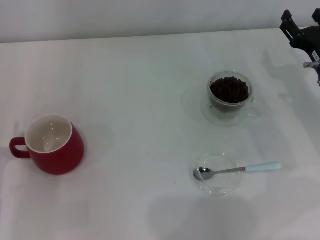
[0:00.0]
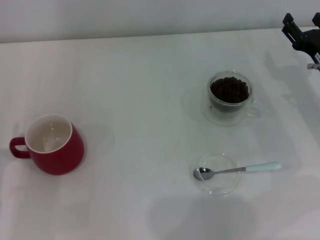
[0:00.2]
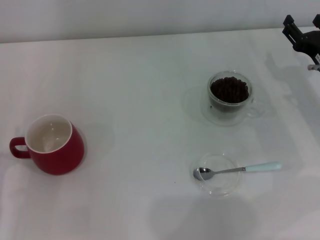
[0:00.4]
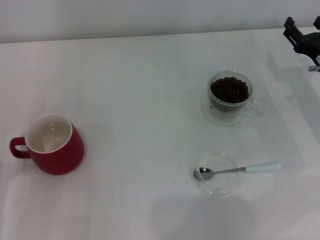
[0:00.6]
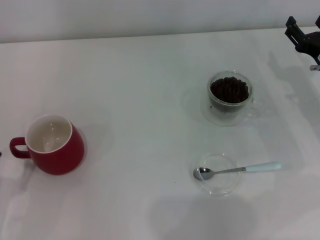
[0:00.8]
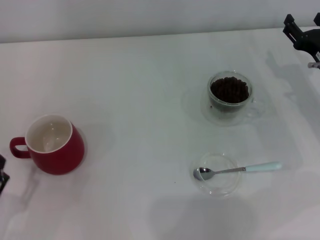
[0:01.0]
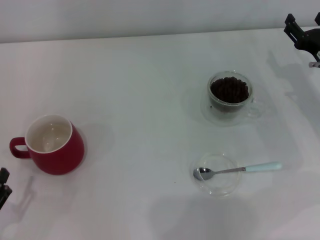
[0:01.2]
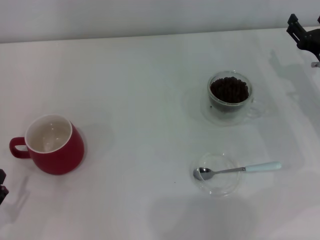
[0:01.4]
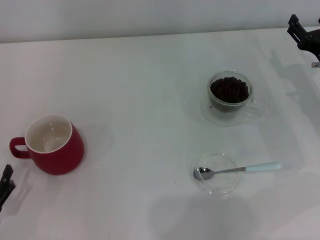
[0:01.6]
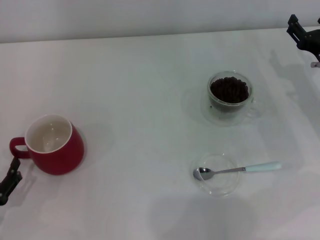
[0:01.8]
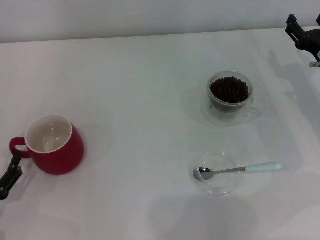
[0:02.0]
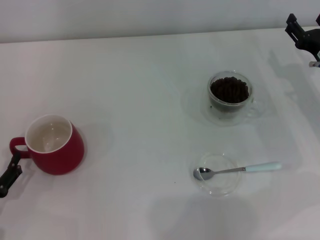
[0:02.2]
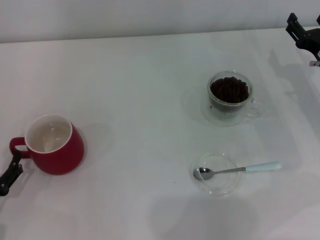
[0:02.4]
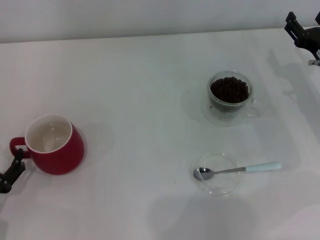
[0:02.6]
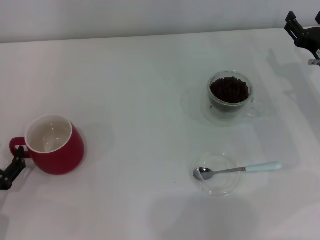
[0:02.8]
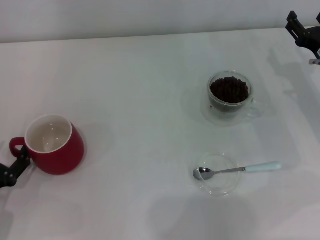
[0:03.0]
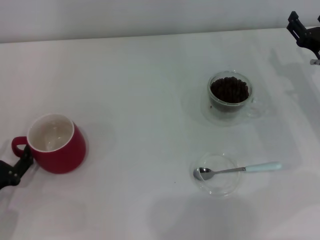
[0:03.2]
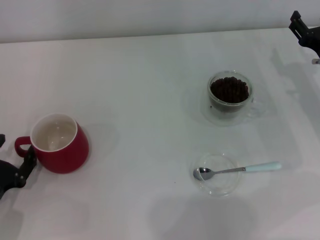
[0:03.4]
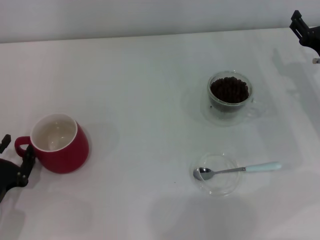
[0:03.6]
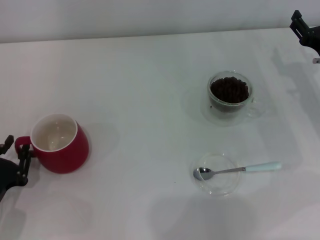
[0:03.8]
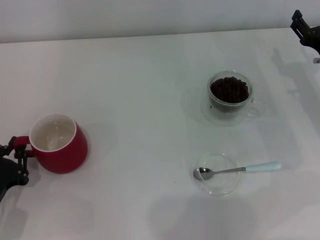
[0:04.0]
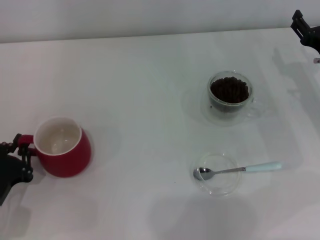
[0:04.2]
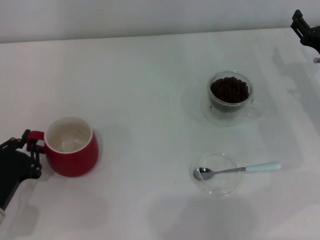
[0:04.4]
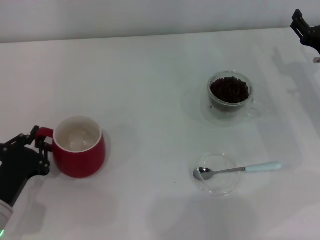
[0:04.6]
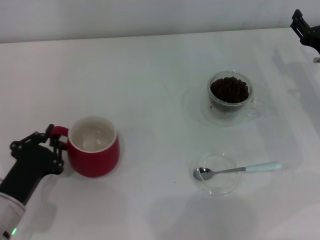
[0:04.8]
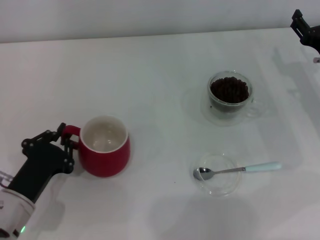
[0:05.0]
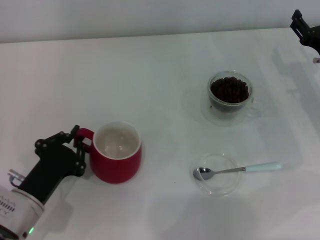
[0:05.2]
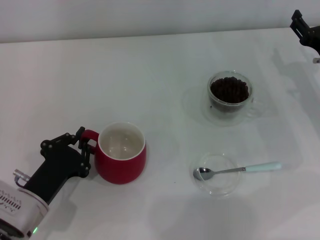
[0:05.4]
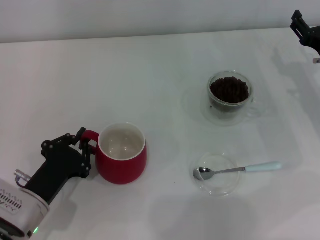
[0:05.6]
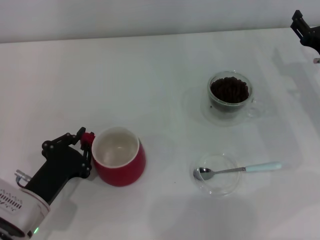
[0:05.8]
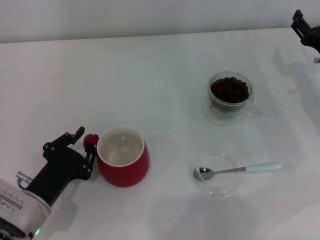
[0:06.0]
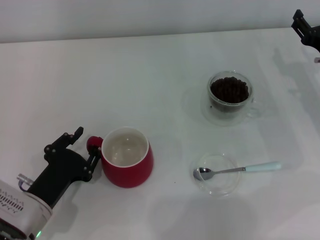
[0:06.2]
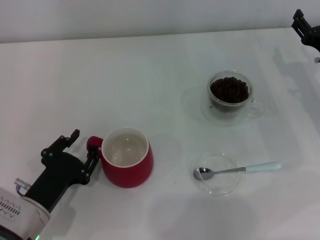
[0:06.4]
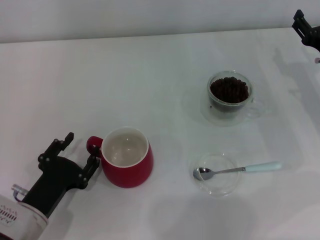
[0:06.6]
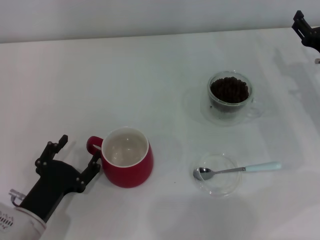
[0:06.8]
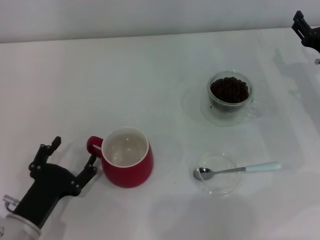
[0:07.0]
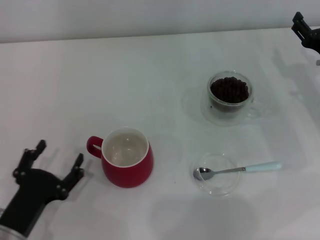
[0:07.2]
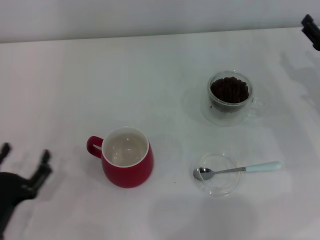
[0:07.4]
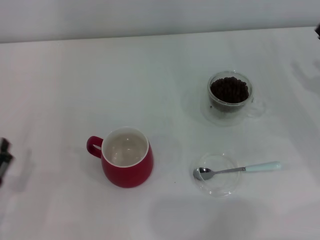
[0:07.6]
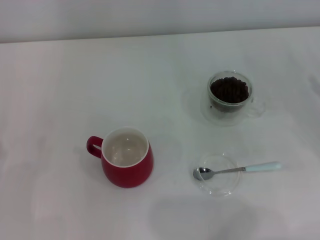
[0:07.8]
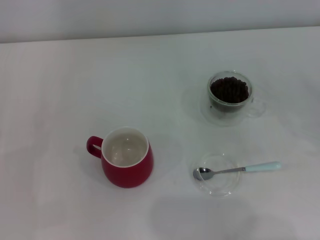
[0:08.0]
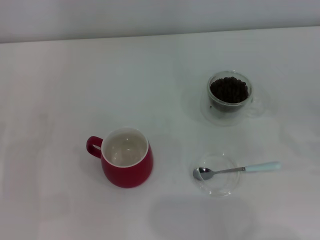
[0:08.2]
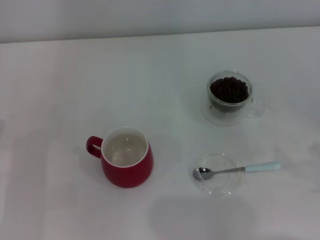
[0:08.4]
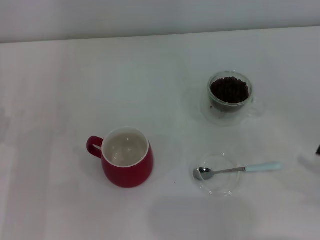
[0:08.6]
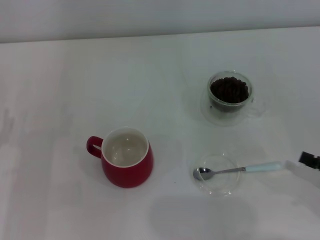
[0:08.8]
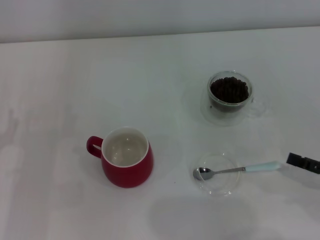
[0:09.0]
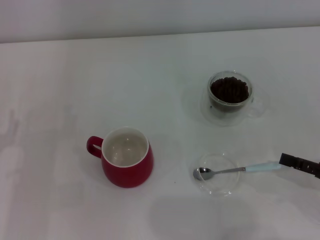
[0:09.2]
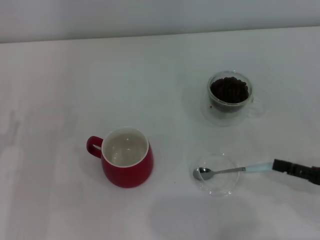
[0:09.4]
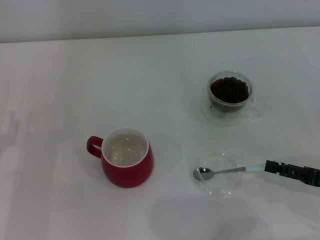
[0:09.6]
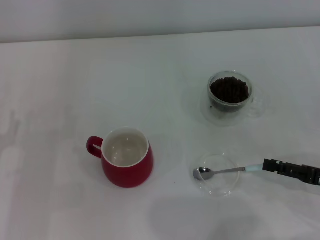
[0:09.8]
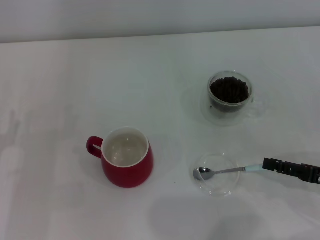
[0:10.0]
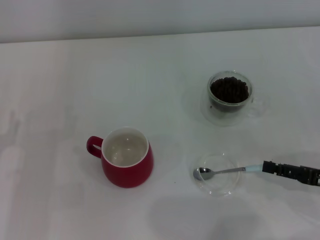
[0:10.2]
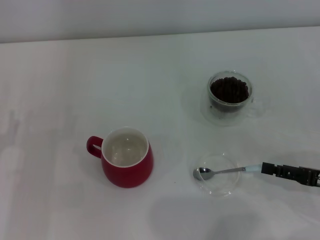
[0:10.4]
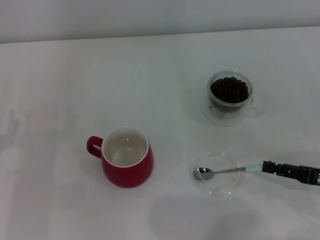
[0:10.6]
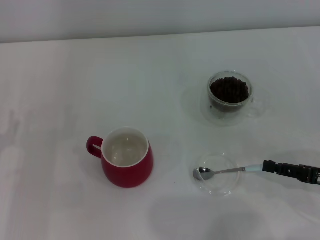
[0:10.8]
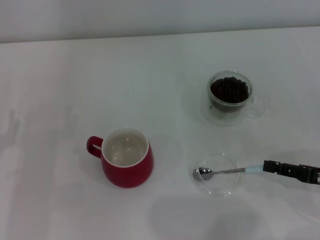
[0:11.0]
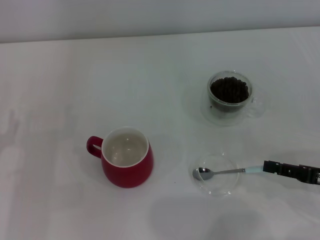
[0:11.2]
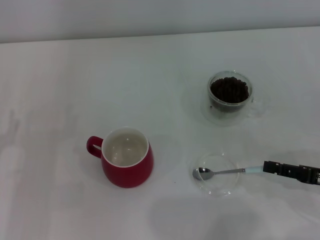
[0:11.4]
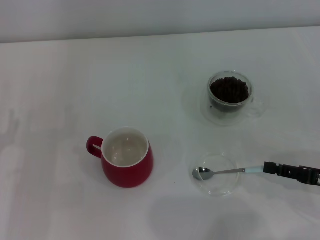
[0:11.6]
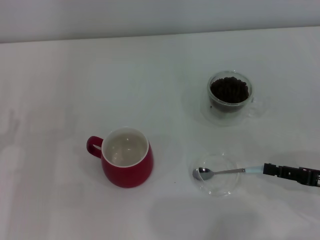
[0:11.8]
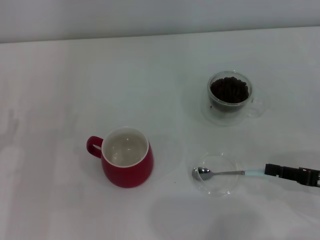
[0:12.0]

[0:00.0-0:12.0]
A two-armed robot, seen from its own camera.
Task of the whole recording: Use a blue spoon to take out the coffee beans from the glass and pour them into the red cup.
Step, 0:00.0 to 0:07.2: Move the cup to the center of view with the left gripper.
0:00.0 to 0:01.6: The left gripper travels backward by about 5 cm.
0:01.6 to 0:03.0: The left gripper travels forward by approximately 5 cm.
0:03.0 to 0:04.4: The left gripper closes.
0:04.4 to 0:06.0: The left gripper goes approximately 5 cm to the right.
0:06.0 to 0:07.6: The right gripper shifts some 5 cm to the right; the left gripper moves to the left and backward, roughly 10 cm, and opens.
0:07.6 to 0:09.0: The right gripper goes approximately 15 cm backward, while the left gripper is displaced forward by roughly 5 cm.
0:09.0 to 0:10.4: The grippers stay close to where they were, moving slightly.
0:10.4 to 0:12.0: Both grippers stay about where they are.

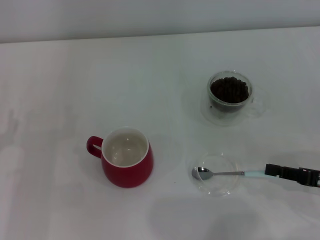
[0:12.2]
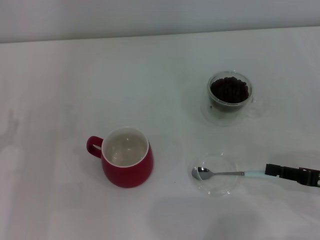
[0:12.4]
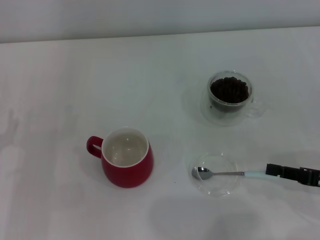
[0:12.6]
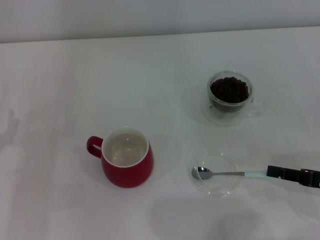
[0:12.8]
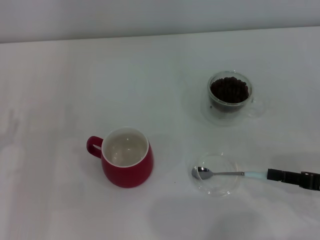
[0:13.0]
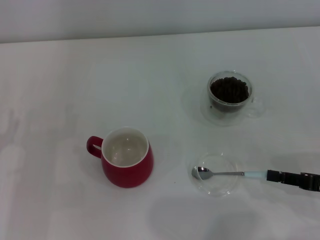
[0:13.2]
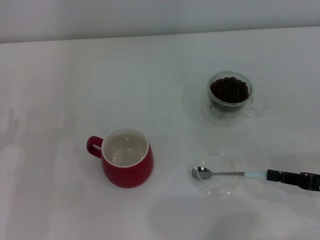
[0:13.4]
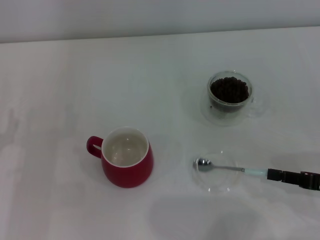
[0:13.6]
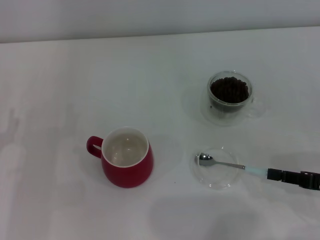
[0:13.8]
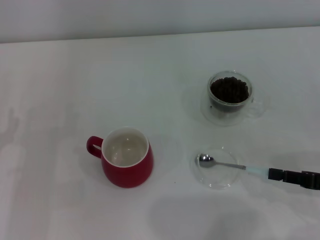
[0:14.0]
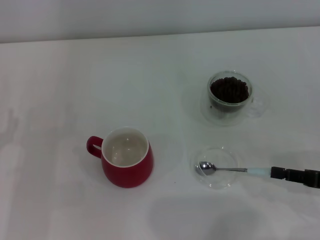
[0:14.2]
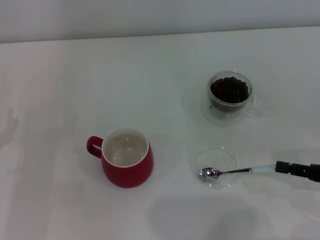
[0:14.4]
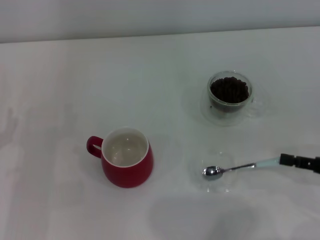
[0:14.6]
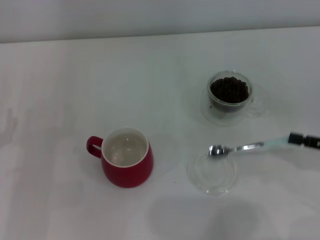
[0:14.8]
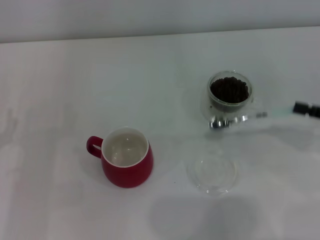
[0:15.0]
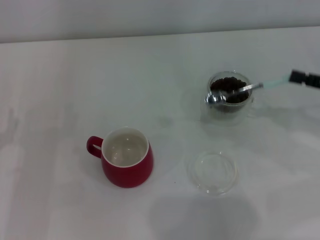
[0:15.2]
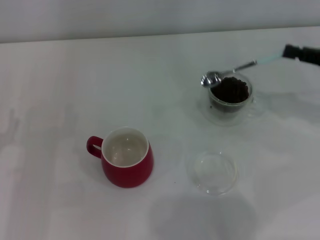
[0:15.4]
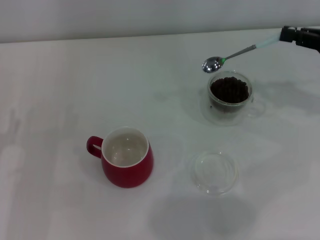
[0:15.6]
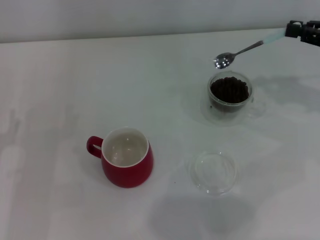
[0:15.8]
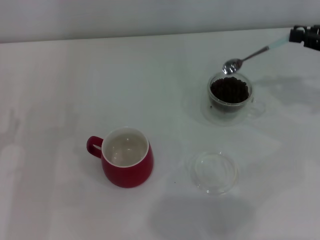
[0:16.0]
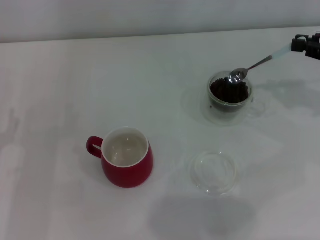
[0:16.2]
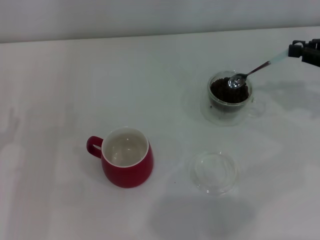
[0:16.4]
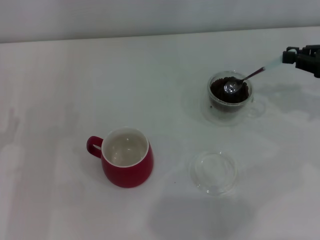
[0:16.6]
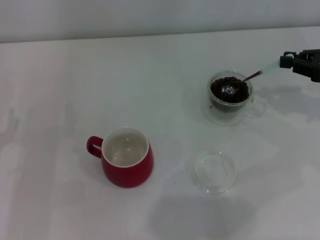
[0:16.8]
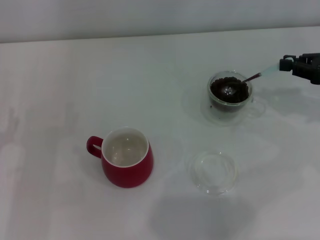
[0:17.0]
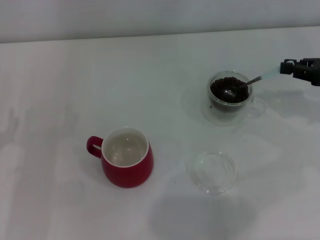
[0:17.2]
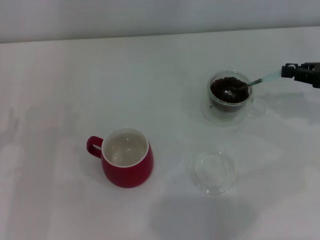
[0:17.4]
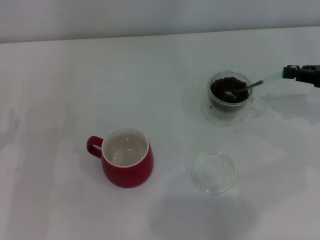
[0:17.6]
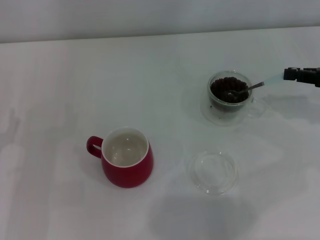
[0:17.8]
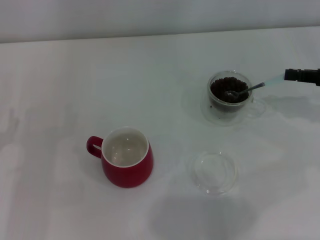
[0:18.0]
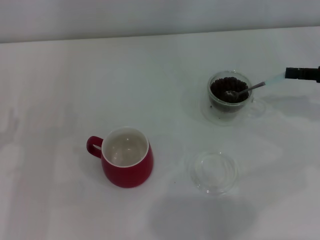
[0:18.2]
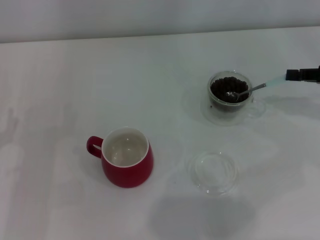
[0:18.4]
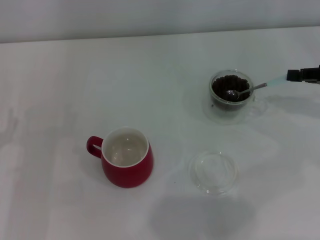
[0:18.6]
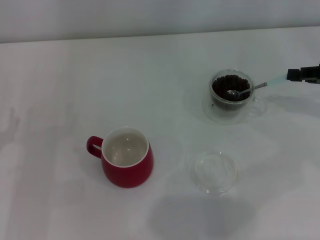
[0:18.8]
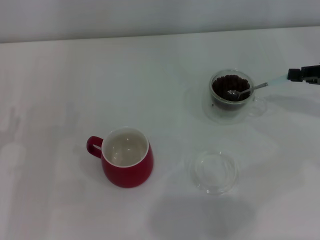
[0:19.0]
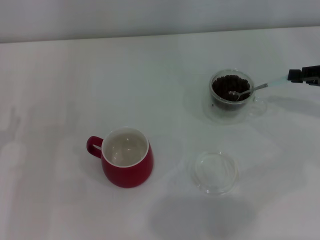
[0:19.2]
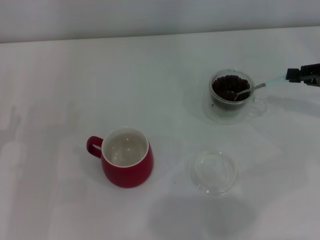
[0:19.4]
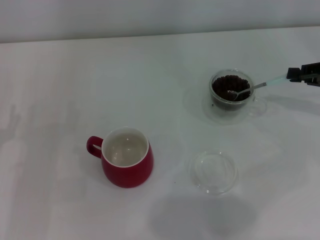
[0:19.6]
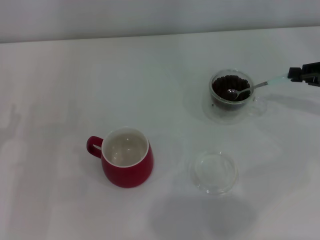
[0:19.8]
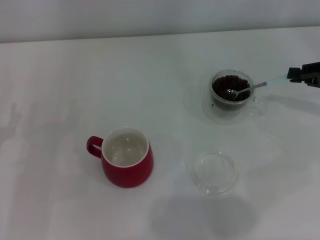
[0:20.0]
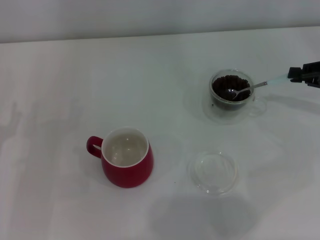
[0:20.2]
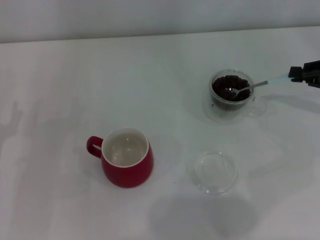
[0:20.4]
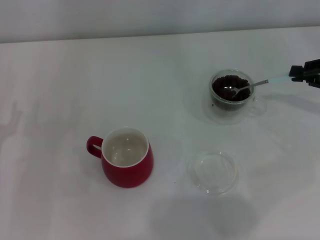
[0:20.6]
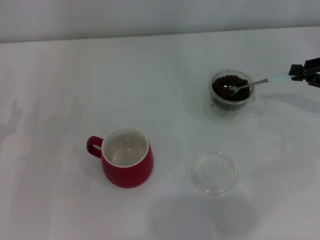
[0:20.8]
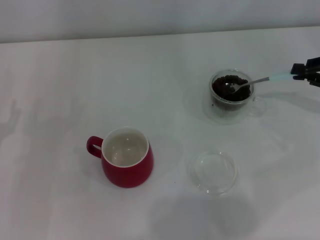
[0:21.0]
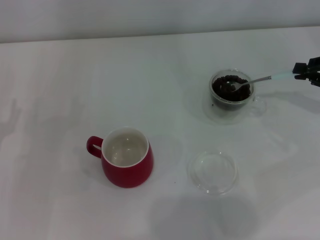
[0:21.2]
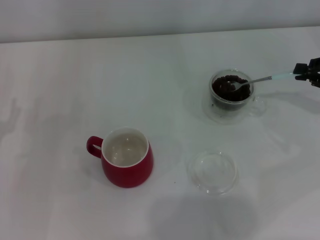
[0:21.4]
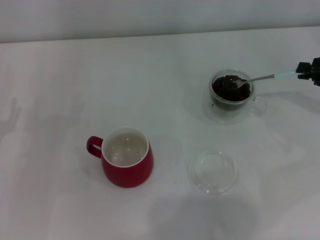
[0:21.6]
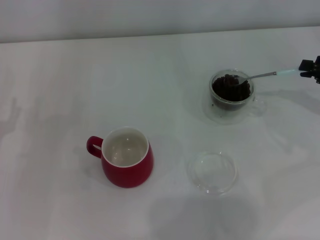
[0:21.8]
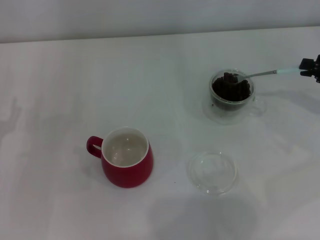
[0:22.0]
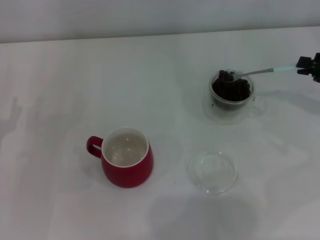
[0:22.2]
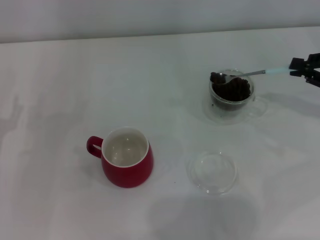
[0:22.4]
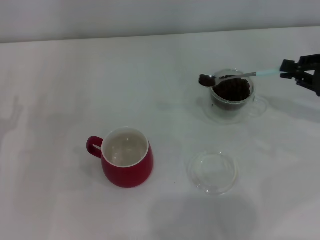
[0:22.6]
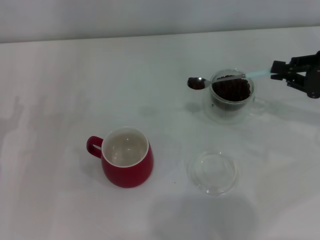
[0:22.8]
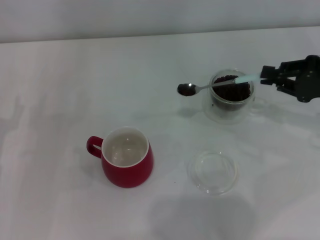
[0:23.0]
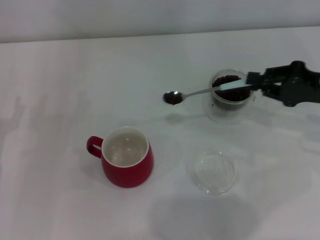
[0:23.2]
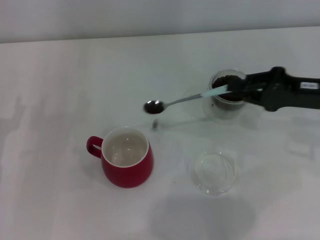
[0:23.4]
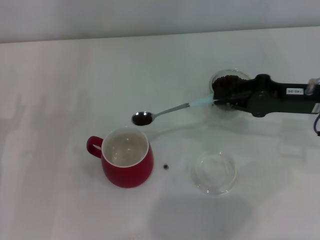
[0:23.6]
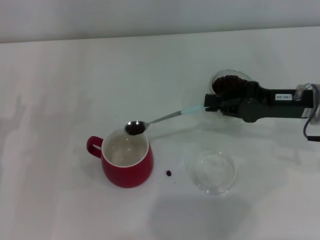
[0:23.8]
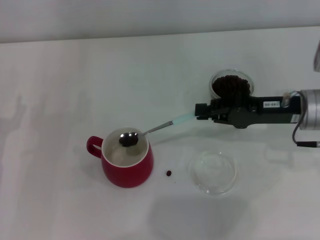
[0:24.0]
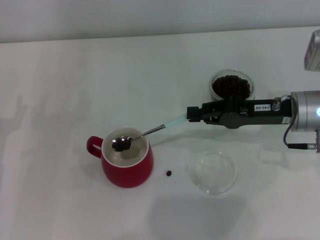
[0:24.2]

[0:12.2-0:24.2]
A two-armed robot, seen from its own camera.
Task of the whole recording: Use a blue spoon to take out the coffee beans from the glass and pour them into the red cup.
Step, 0:12.2 to 0:14.8: Pick up the spoon with the right gripper.
0:12.2 to 0:13.8: Neither gripper changes place.
0:13.8 to 0:15.2: The right gripper is displaced upward and forward by approximately 10 cm.
0:15.2 to 0:16.6: The right gripper travels forward by about 5 cm.
0:18.2 to 0:19.8: The grippers move only a little.
0:21.2 to 0:22.6: There are only small adjustments of the grippers.
0:22.6 to 0:24.2: The right gripper is displaced to the left by some 10 cm.
